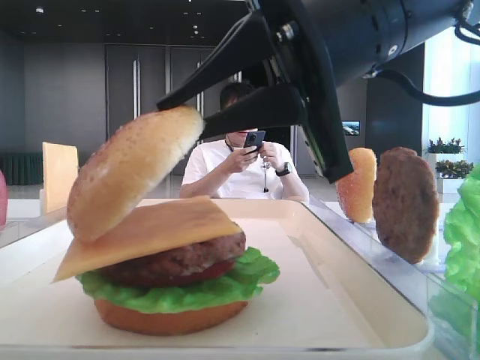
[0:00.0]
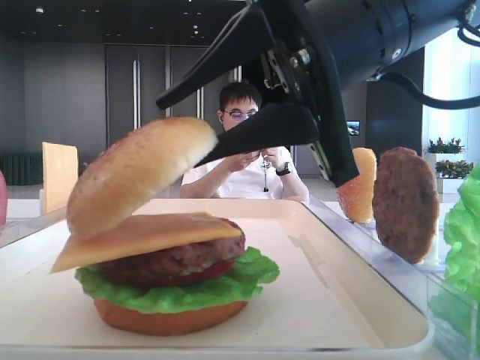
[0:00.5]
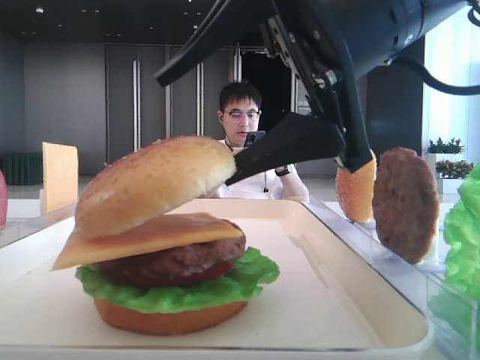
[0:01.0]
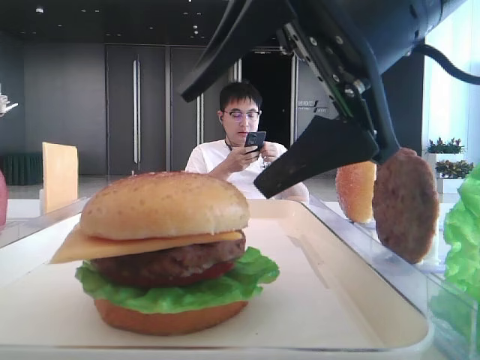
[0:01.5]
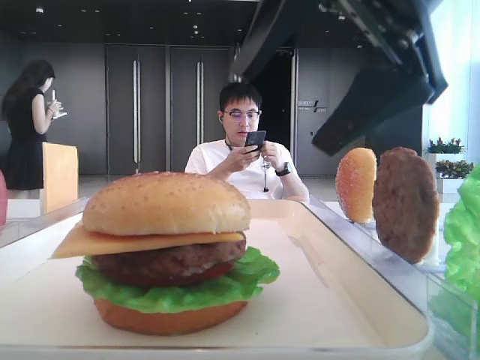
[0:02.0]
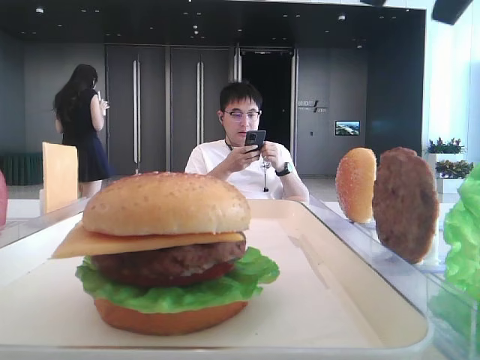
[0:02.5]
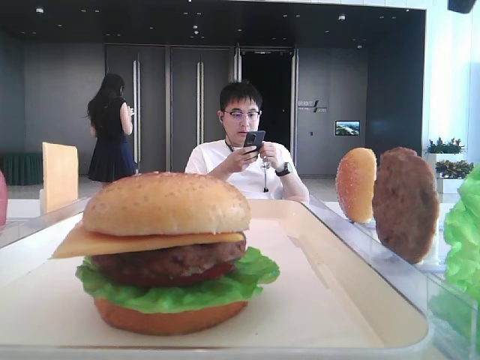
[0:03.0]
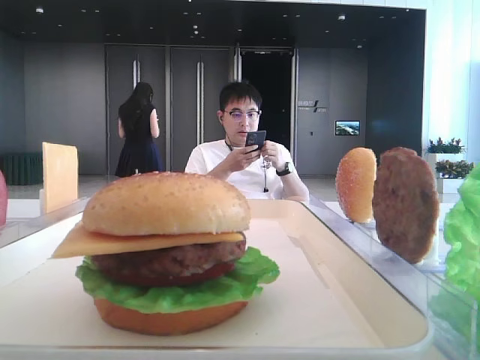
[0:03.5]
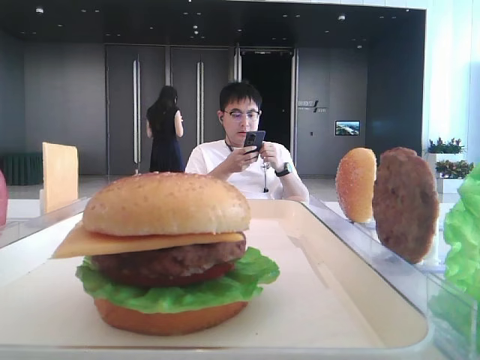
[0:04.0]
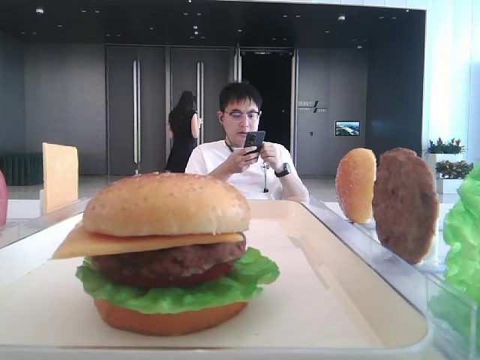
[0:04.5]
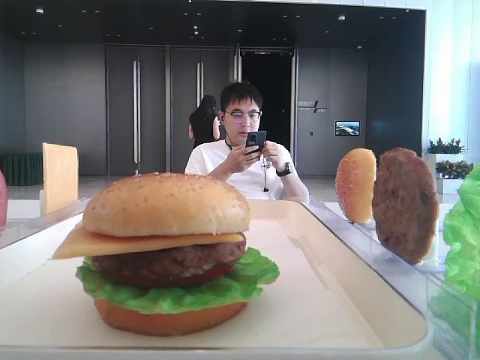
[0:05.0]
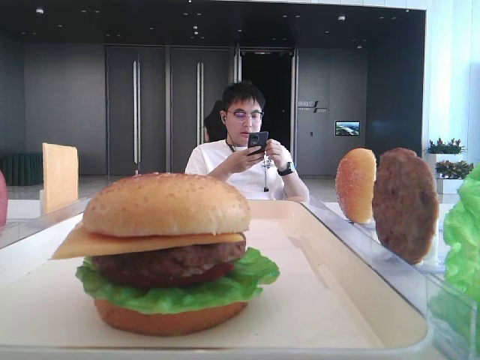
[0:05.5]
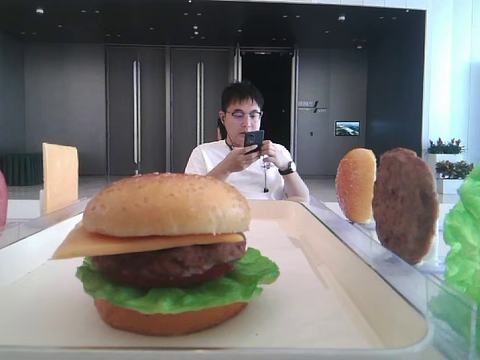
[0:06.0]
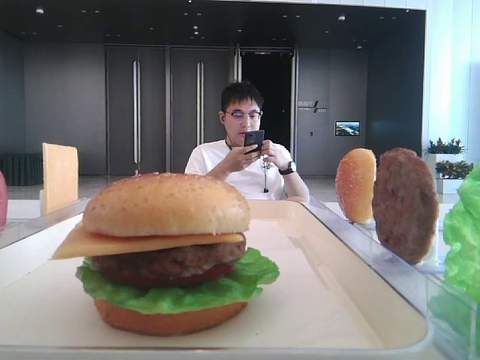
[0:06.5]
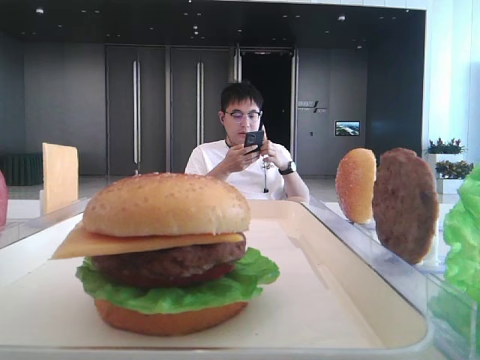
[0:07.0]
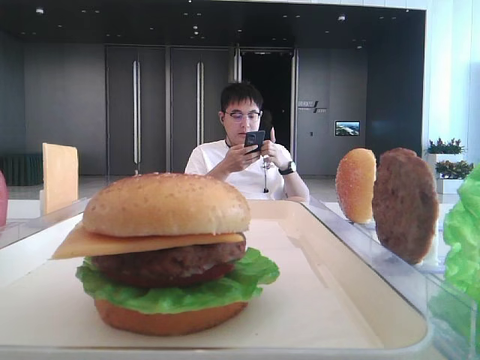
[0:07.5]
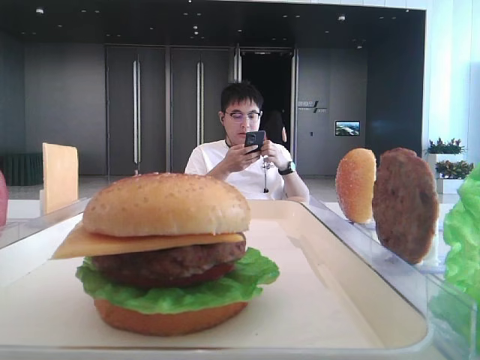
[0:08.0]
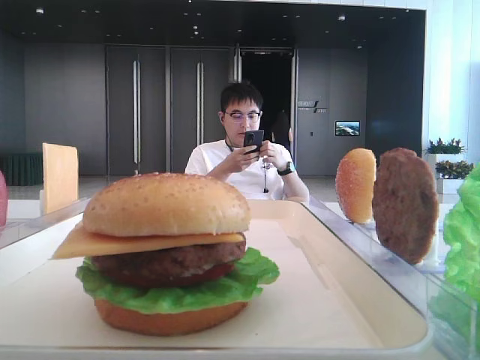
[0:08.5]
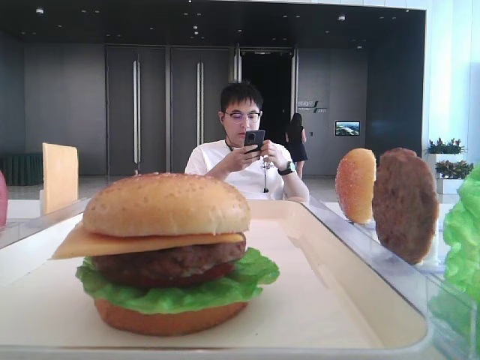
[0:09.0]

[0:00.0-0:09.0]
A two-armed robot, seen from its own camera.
0:00.0 to 0:02.0: The right gripper changes place by some 5 cm, and opens up.
0:02.0 to 0:04.5: The right gripper shifts roughly 35 cm upward, to the right and backward.
0:04.5 to 0:07.0: The right gripper goes approximately 20 cm downward and backward.
0:07.0 to 0:09.0: The two grippers keep their place.
